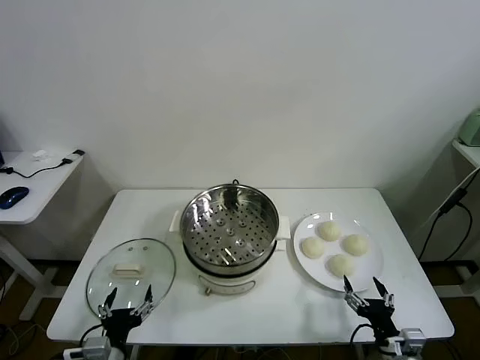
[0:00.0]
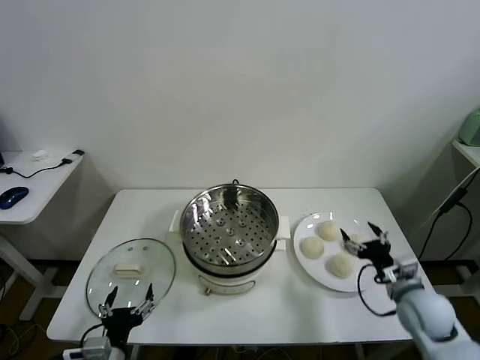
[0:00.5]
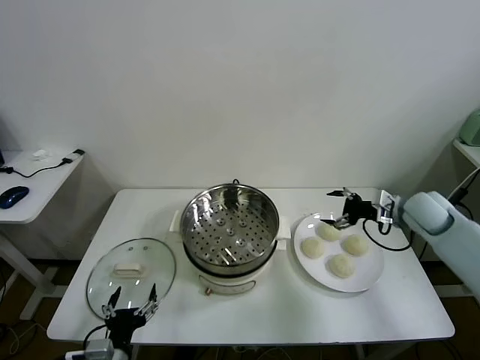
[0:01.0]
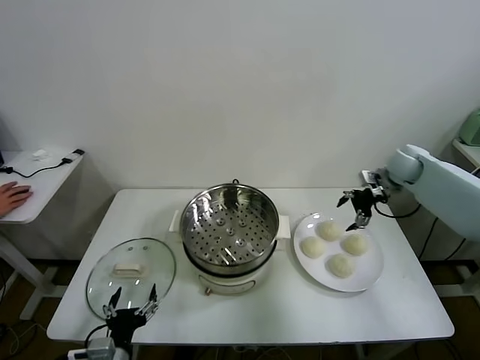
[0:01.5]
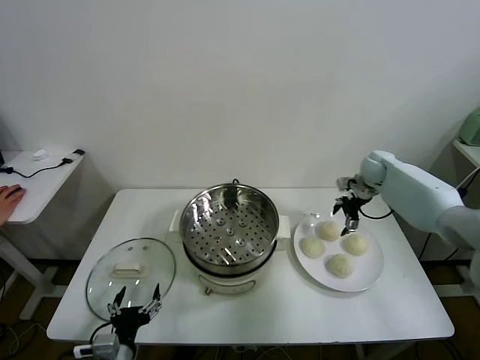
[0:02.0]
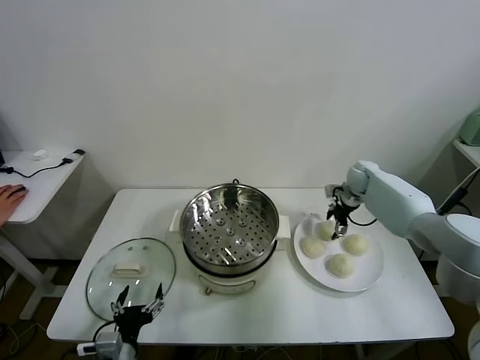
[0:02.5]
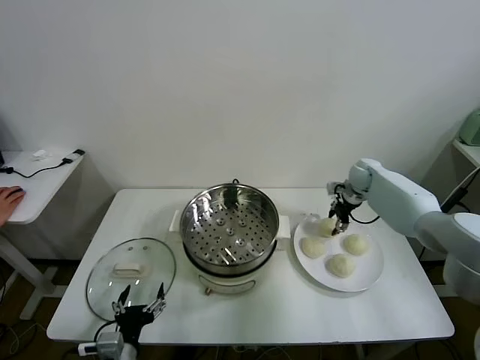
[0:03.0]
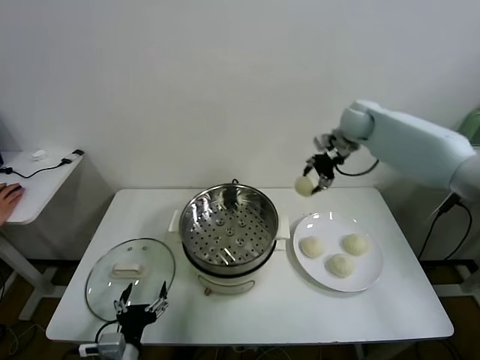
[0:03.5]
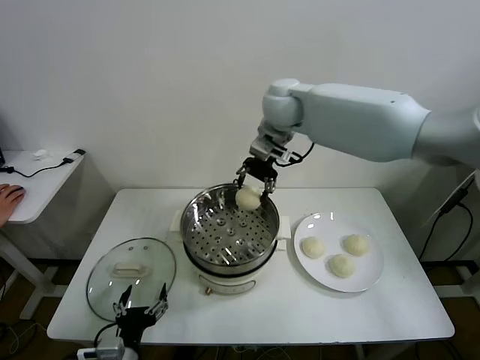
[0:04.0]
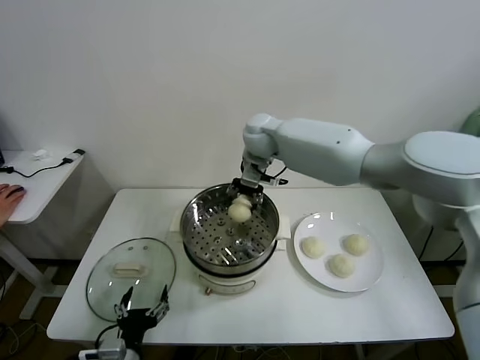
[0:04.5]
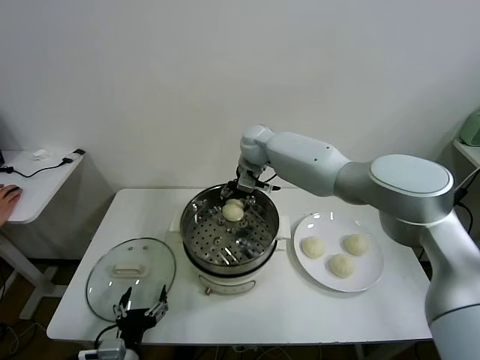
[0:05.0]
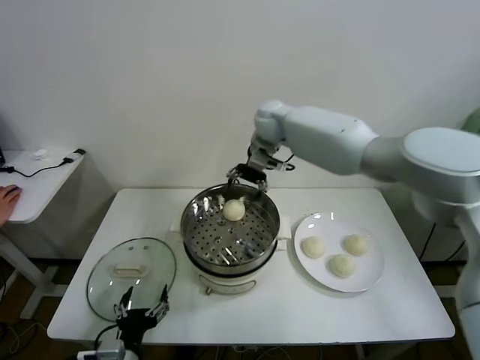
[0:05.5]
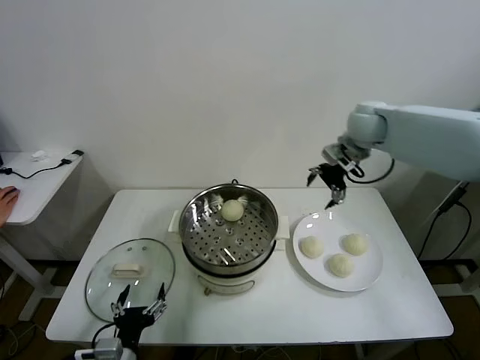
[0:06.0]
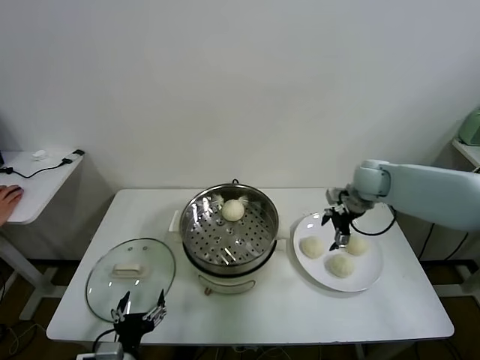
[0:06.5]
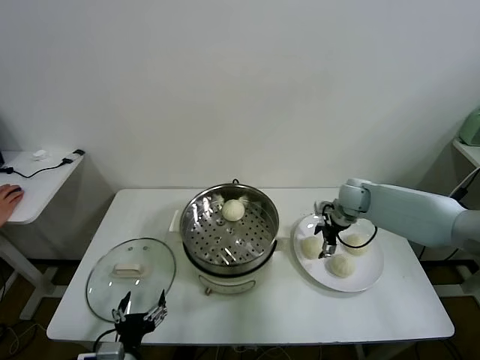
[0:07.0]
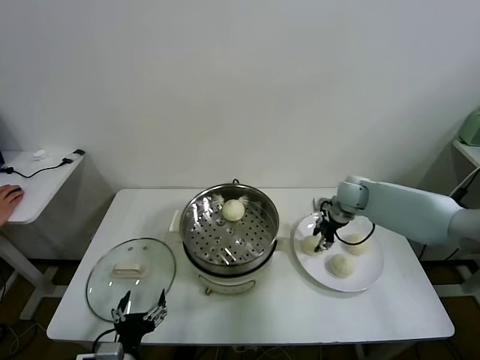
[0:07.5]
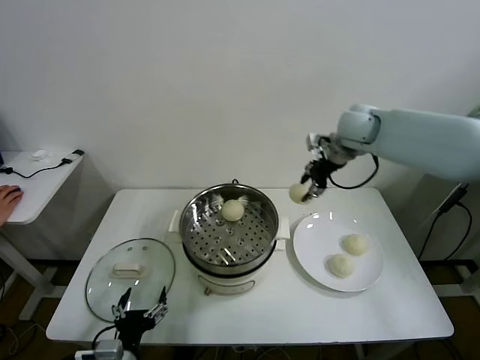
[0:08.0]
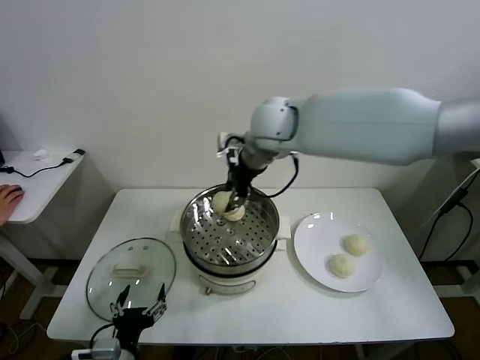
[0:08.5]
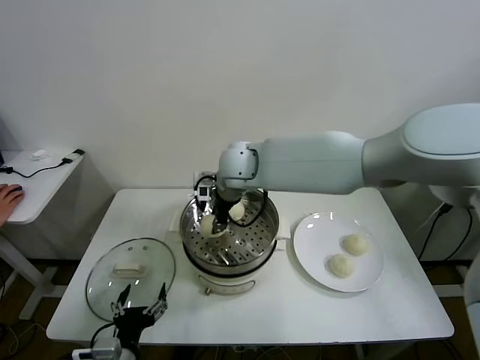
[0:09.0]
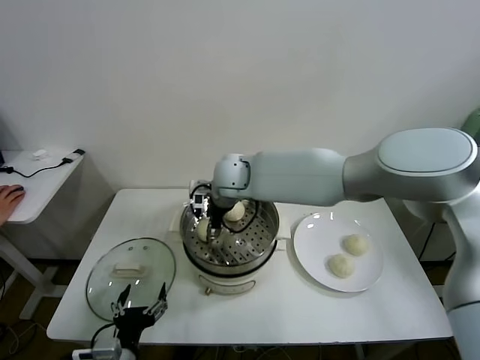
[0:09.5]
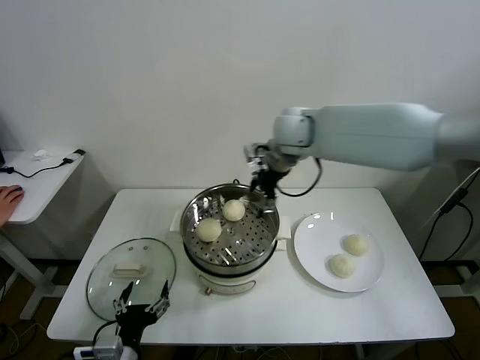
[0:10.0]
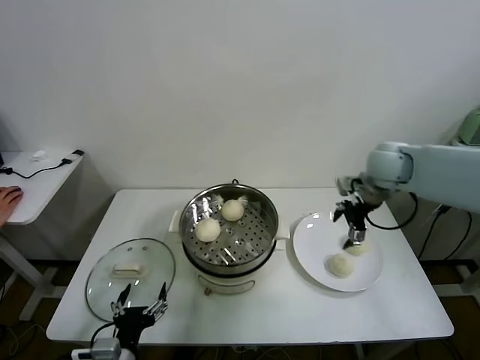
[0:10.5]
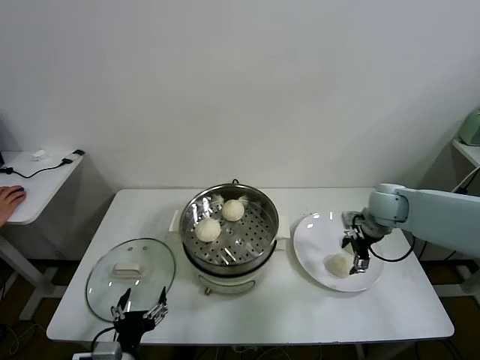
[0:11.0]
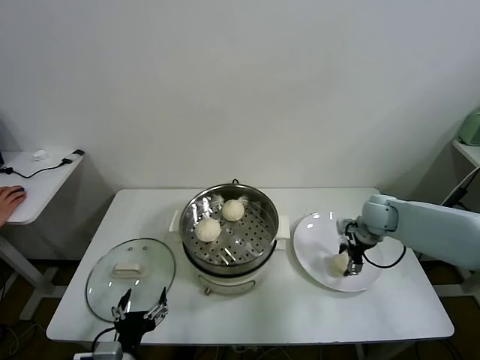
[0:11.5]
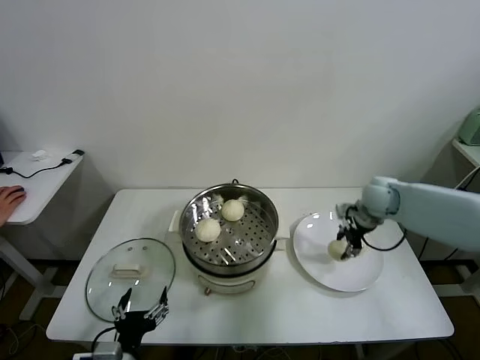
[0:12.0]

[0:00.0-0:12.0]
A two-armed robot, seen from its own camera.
Task of the whole recording: take steamed baozi put them in steamer.
Step, 0:00.0 to 0:02.5: Grasp the baozi in the plate with right gripper.
Step, 0:03.0 to 0:05.0: Place the baozi on the steamer with right gripper.
Step, 0:05.5 to 0:07.0: Grasp the baozi in the plate with right gripper.
Step, 0:07.5 to 0:09.5: Place the baozi on the steamer with right gripper.
Step, 0:10.0 to 0:11.5: Grasp the baozi in the plate with right gripper.
0:02.0 to 0:04.0: The right gripper shifts approximately 35 cm to the left and upward, and closes up.
0:04.0 to 0:06.0: The right gripper heads to the right, covering approximately 25 cm, and opens.
0:06.0 to 0:08.0: The right gripper moves to the left and upward, roughly 15 cm, and closes its fingers.
0:08.0 to 0:10.0: The right gripper reaches some 20 cm to the left, then returns, and opens its fingers.
0:10.0 to 0:12.0: The right gripper moves to the right and downward, some 20 cm, and closes.

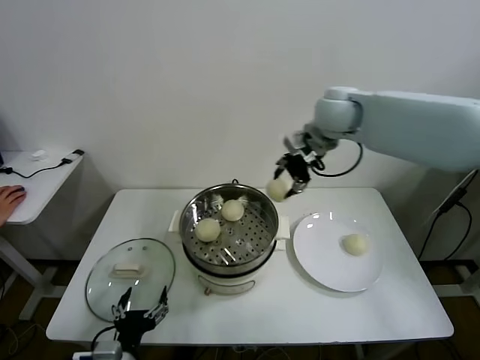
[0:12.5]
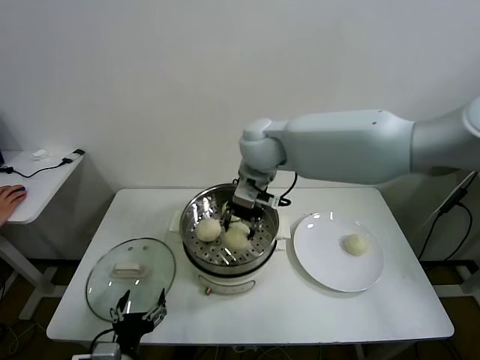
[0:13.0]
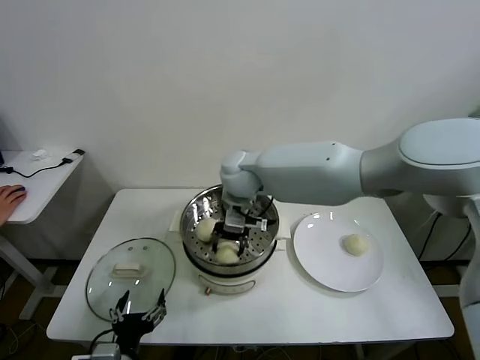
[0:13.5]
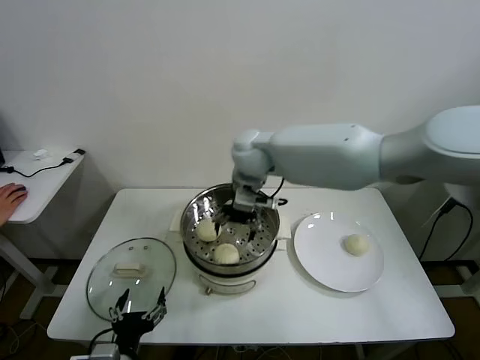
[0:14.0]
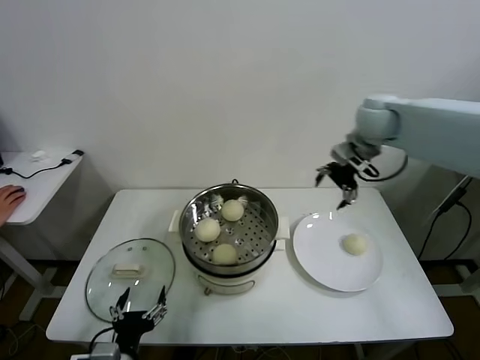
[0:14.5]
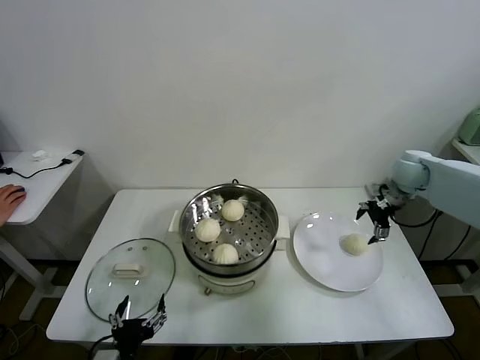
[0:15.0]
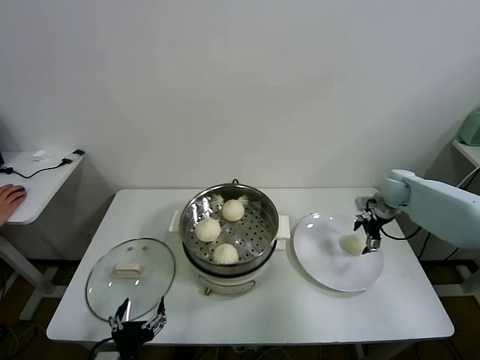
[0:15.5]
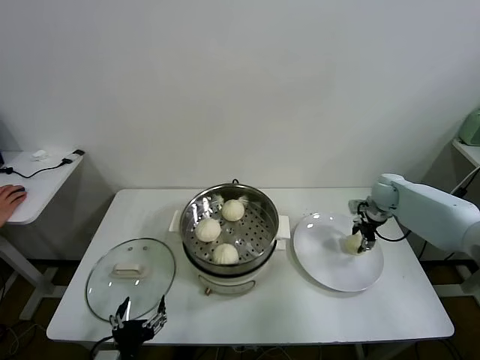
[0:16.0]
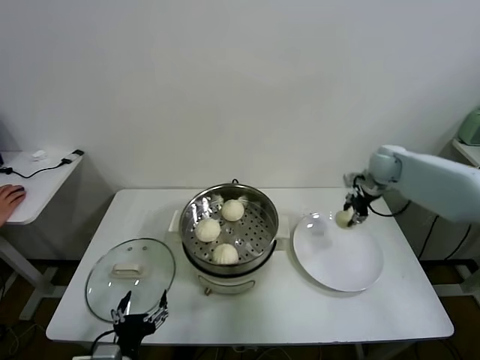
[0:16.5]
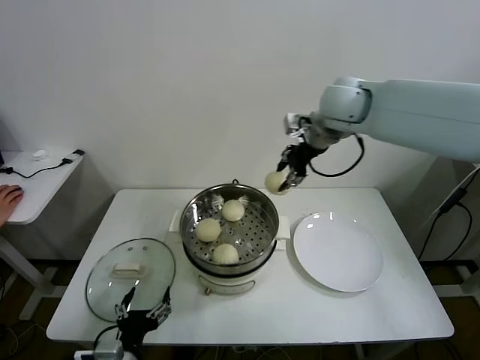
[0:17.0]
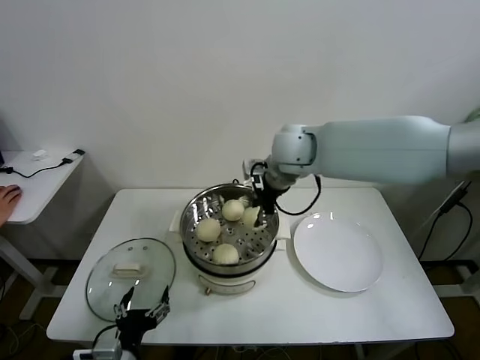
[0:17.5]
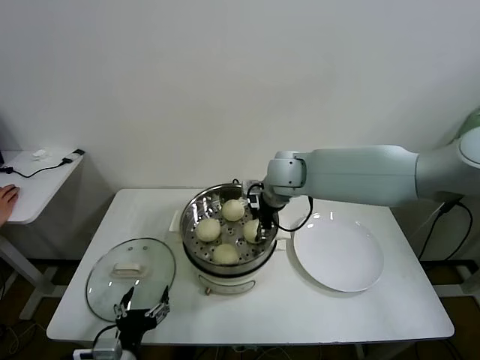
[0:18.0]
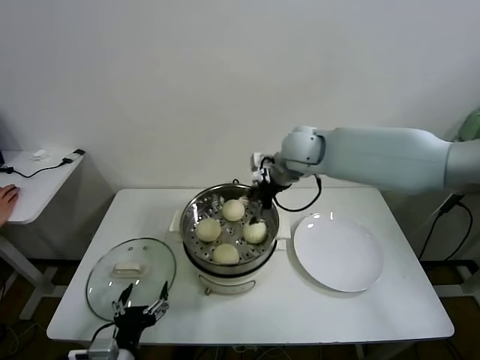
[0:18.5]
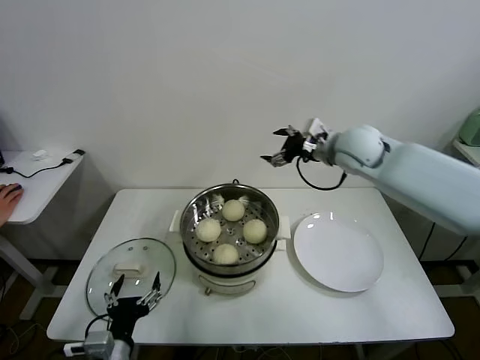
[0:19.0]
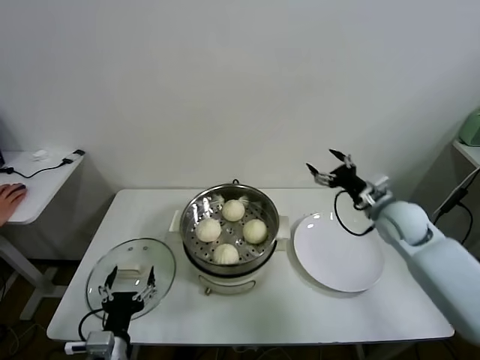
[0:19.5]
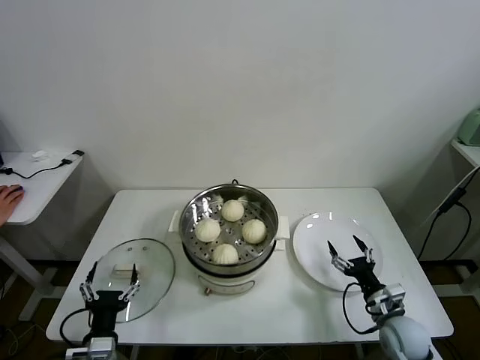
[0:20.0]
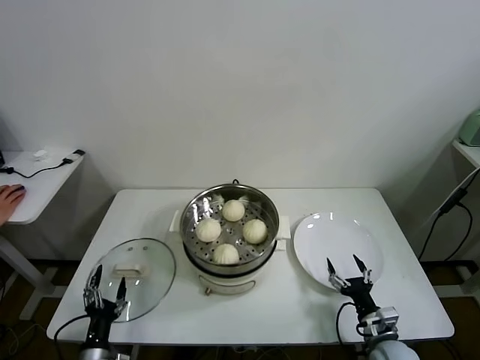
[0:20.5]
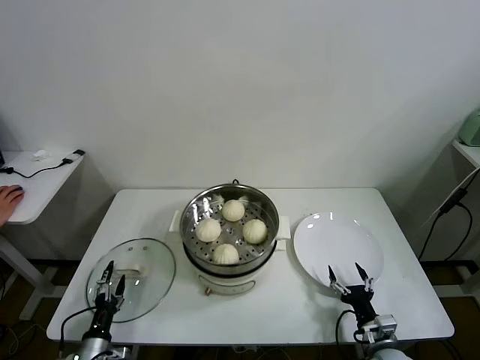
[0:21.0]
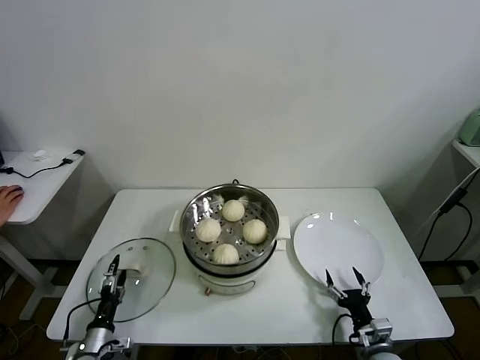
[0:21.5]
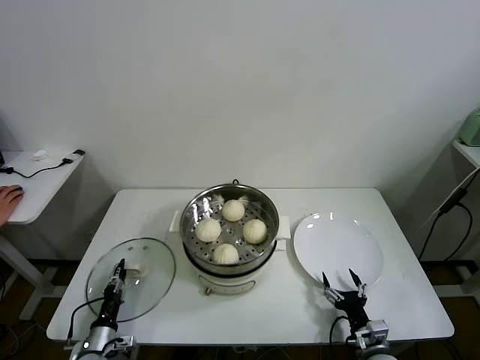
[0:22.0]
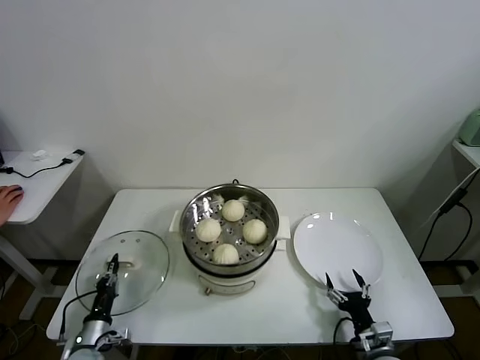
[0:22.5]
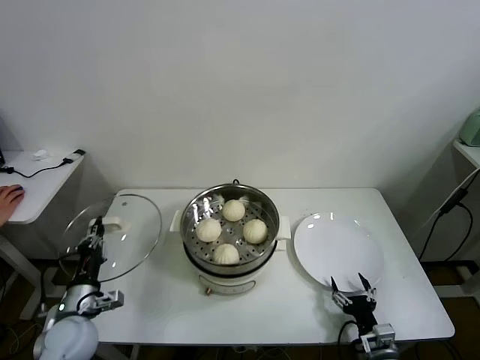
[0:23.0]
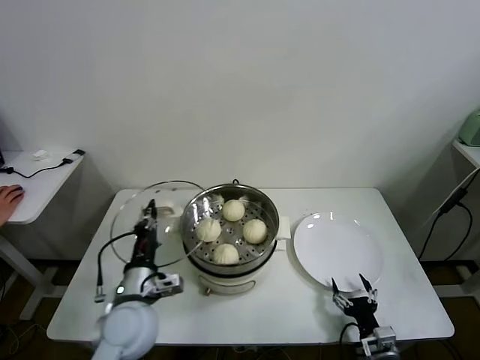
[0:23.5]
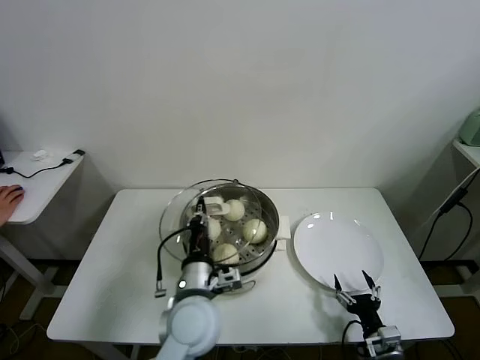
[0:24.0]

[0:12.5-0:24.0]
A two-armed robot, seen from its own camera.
Task of the whole recording: take steamed baozi put them in steamer.
Step, 0:14.0 to 0:16.0: Grasp the baozi in the plate with right gripper.
Step, 0:16.5 to 0:18.0: Place the baozi on the steamer with right gripper.
Step, 0:18.5 to 0:22.0: Grasp the pot lid with left gripper.
0:12.5 to 0:14.5: The right gripper goes some 20 cm to the right, and opens its fingers.
0:14.5 to 0:16.5: The right gripper shifts some 10 cm downward, and closes.
0:16.5 to 0:18.5: The right gripper heads to the left, covering roughly 20 cm, and opens its fingers.
0:18.5 to 0:20.0: The left gripper changes place by some 5 cm; the right gripper shifts roughly 50 cm downward, backward and to the right.
0:20.0 to 0:22.0: The left gripper goes approximately 20 cm downward, to the left and forward, and closes its fingers; the right gripper heads backward and downward, covering approximately 10 cm.
0:22.0 to 0:24.0: The left gripper goes some 35 cm to the right and upward.

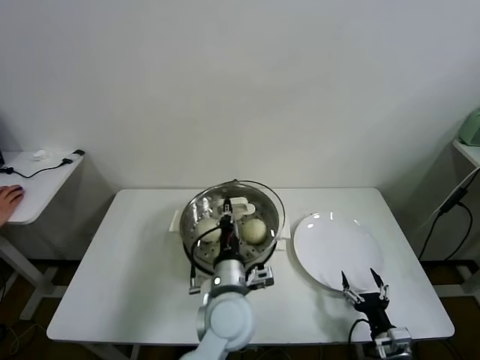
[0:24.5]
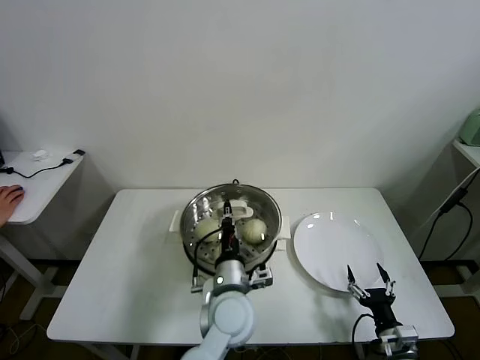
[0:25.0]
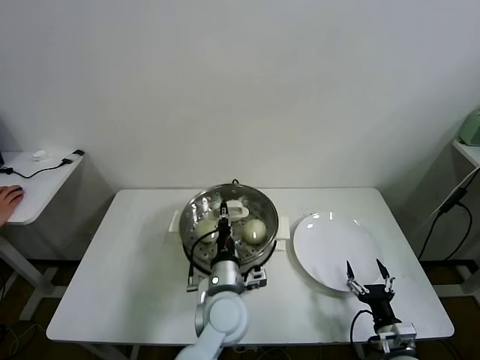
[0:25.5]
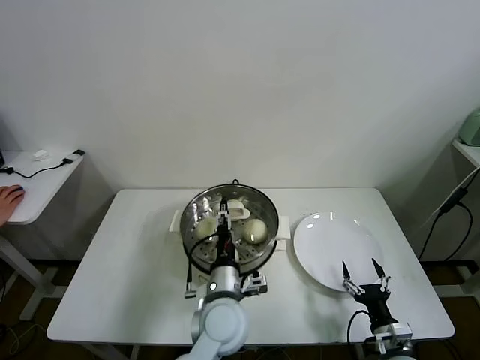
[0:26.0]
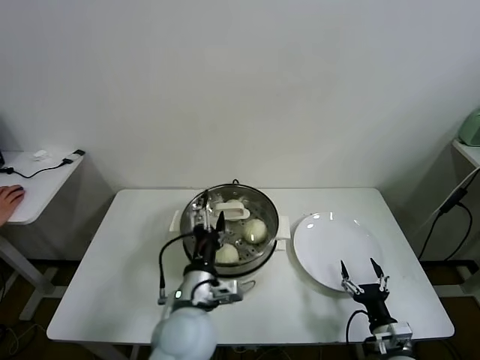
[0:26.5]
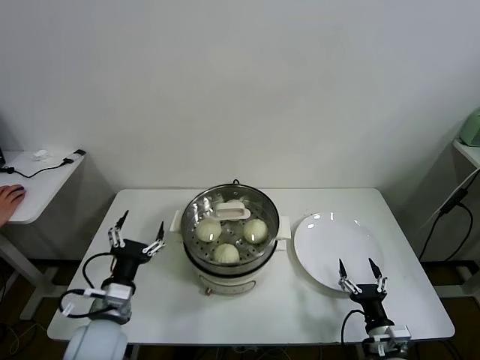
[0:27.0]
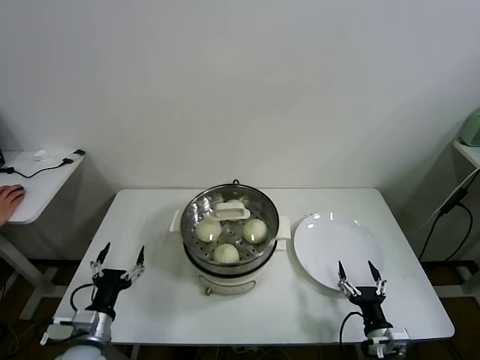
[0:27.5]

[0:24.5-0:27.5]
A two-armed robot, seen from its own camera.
Task of the whole recording: take steamed baozi put them in steamer.
0:24.5 to 0:26.0: The left gripper opens its fingers.
0:26.0 to 0:27.5: The left gripper travels to the left by some 30 cm, and opens its fingers.
